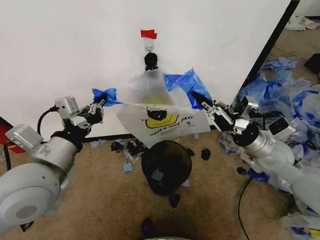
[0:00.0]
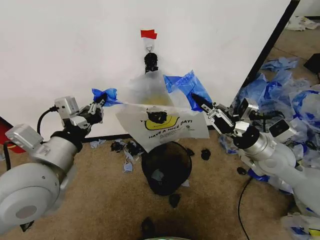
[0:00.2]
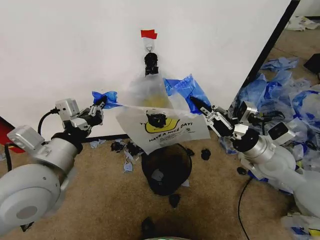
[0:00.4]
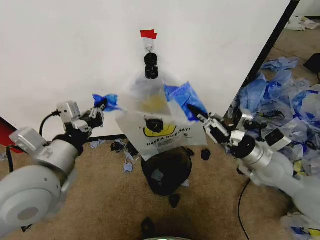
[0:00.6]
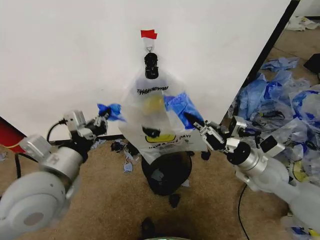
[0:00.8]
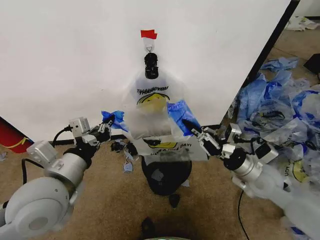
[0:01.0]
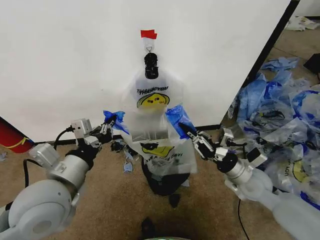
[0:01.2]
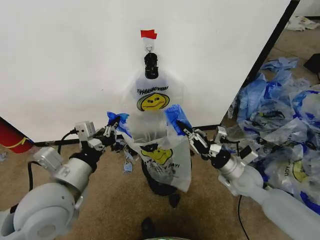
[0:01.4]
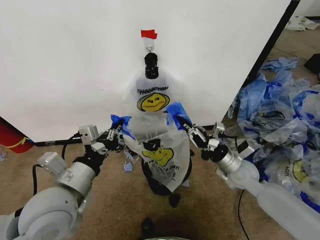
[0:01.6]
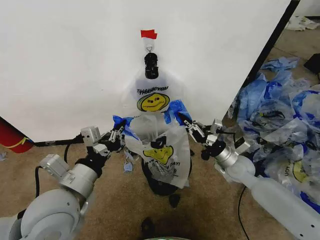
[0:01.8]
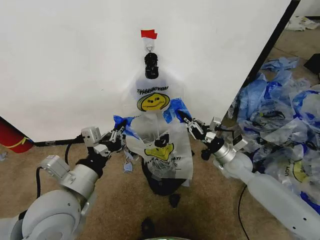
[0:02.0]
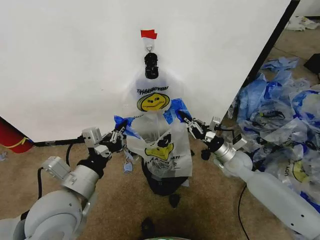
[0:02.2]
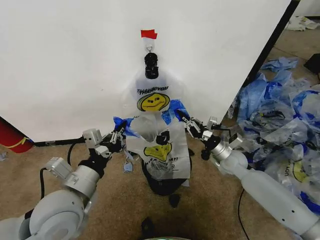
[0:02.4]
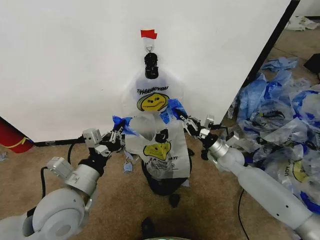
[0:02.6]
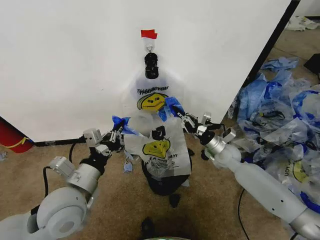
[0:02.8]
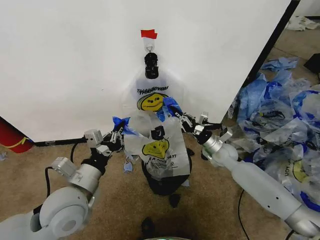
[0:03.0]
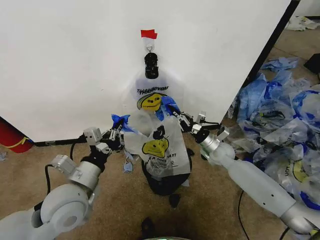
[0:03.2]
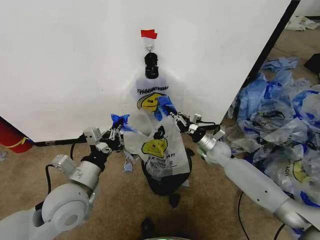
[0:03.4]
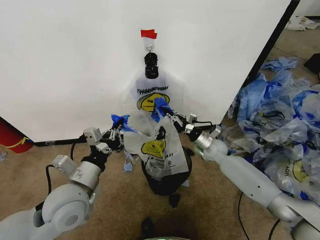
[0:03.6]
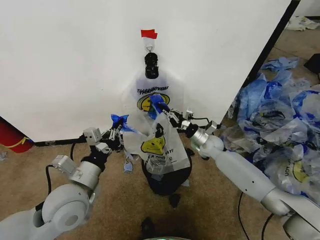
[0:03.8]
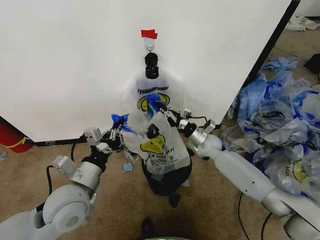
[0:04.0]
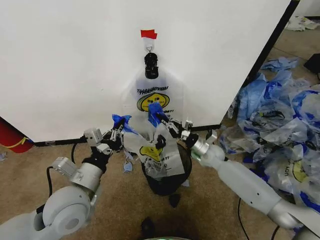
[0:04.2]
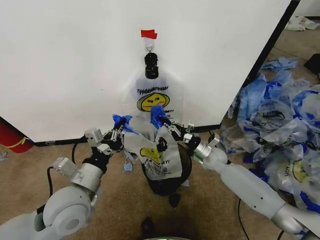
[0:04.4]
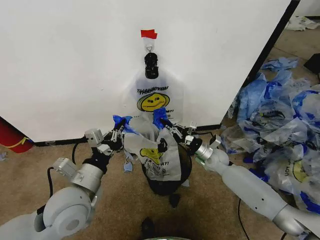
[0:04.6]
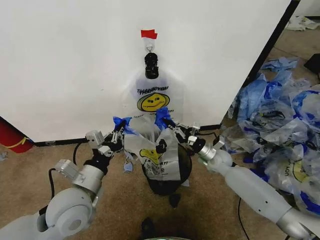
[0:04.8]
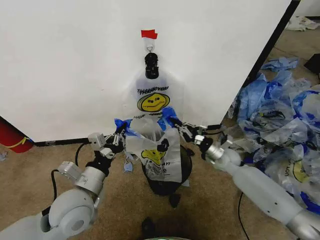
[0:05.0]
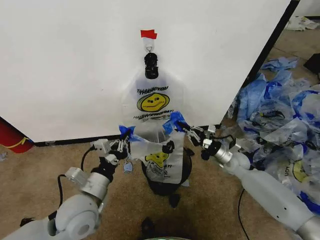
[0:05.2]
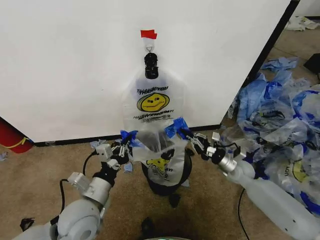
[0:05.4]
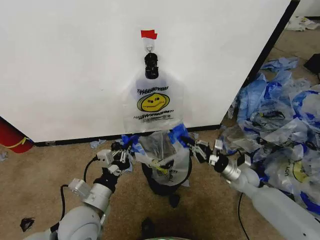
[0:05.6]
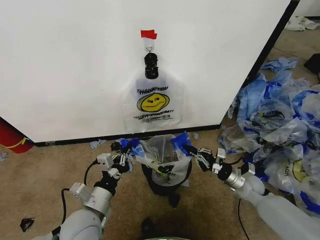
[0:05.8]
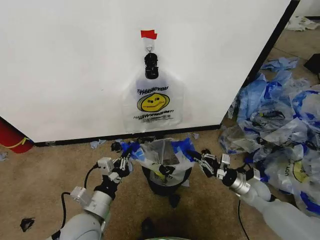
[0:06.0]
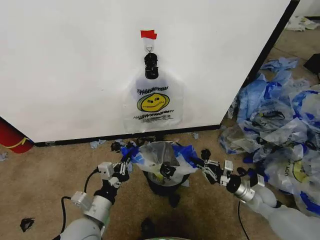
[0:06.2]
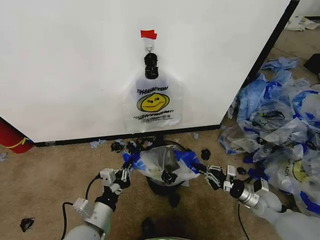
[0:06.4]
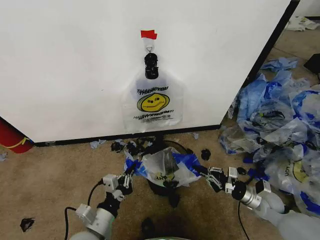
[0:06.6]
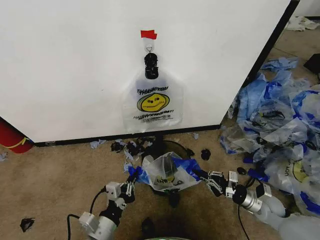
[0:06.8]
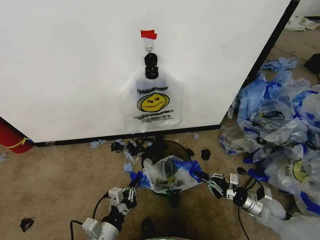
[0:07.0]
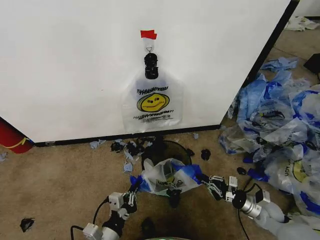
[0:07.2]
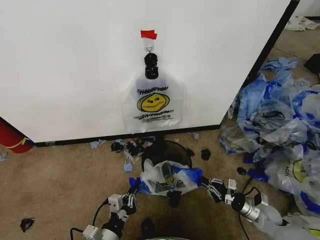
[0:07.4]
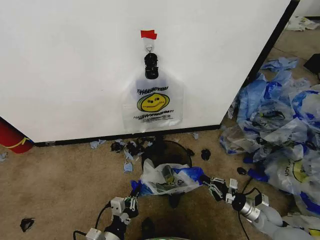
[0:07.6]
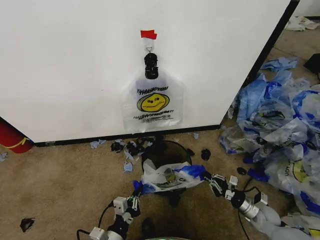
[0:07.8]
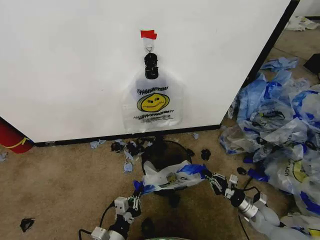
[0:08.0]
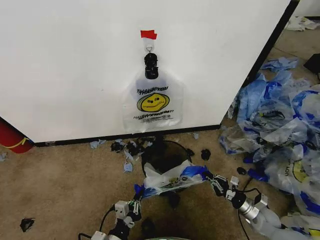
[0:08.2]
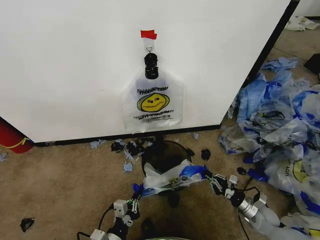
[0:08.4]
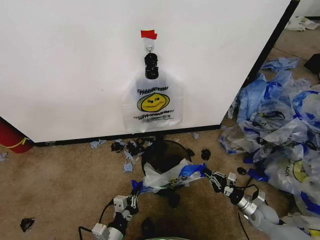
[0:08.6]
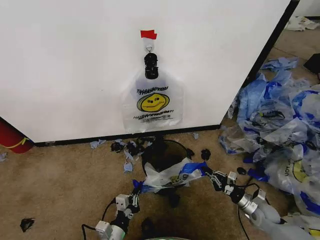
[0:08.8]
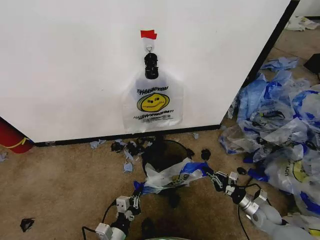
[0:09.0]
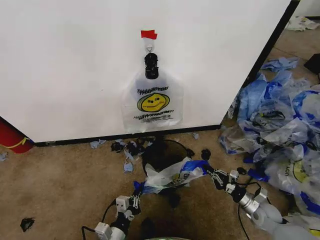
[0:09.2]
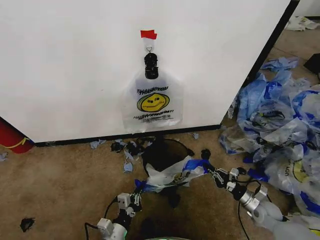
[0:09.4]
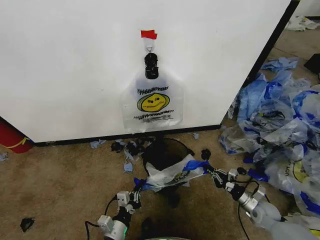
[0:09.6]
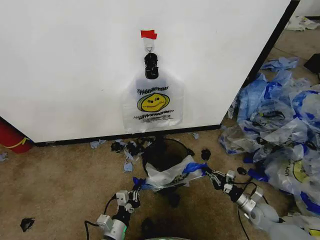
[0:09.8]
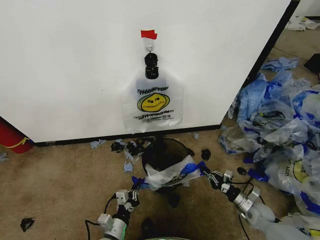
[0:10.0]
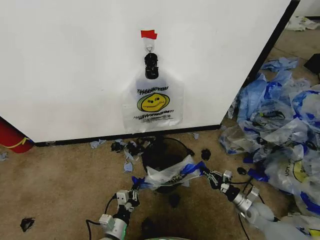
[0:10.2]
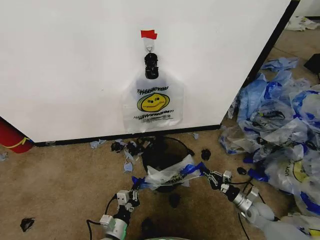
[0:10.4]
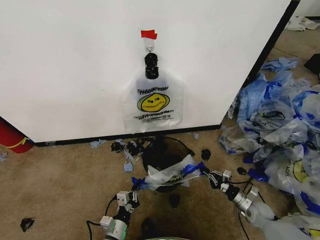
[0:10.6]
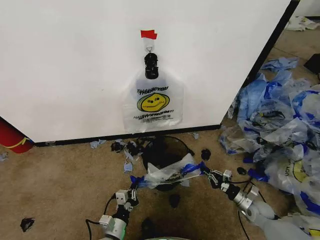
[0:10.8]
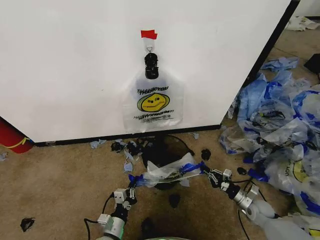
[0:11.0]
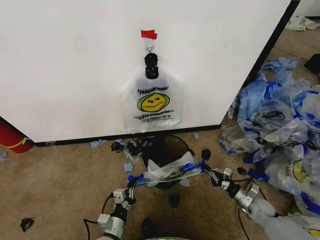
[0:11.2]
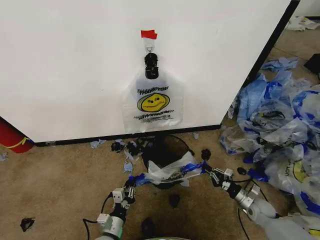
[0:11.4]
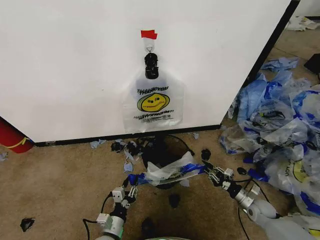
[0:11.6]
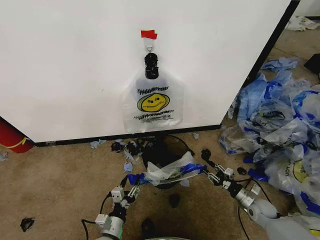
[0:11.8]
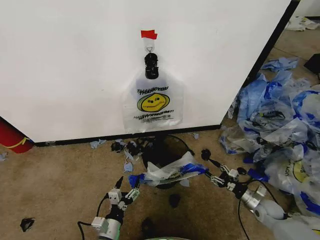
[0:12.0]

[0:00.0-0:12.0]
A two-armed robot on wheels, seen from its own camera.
Task of the whole recording: Pick up the garbage bag from the wall and place it over the trash bin.
0:00.0 to 0:01.6: The right gripper moves downward, roughly 10 cm, while the left gripper travels downward by roughly 5 cm.
0:01.6 to 0:03.0: The left gripper changes place by some 5 cm. Meanwhile the right gripper heads forward, covering approximately 10 cm.
0:04.4 to 0:06.0: The right gripper heads to the right and backward, covering about 20 cm, while the left gripper heads downward, covering approximately 10 cm.
0:06.0 to 0:07.6: The two grippers go roughly 10 cm downward and backward.
0:07.6 to 0:09.0: The grippers stay close to where they were, moving slightly.
0:09.0 to 0:10.4: The left gripper ends up some 5 cm from where it was.
0:10.4 to 0:12.0: The right gripper opens up, while the left gripper opens.

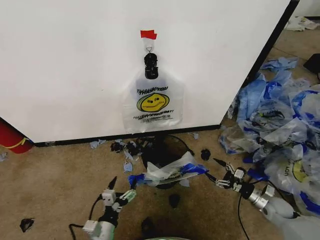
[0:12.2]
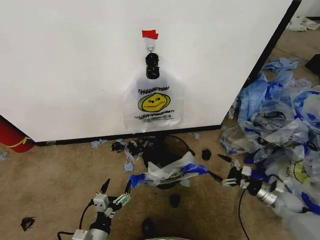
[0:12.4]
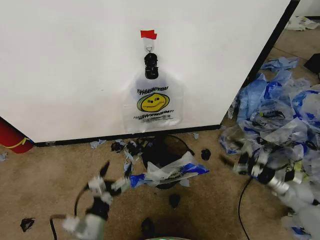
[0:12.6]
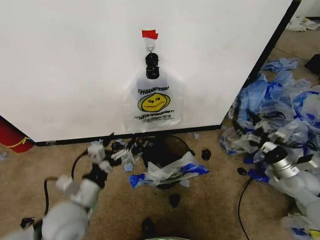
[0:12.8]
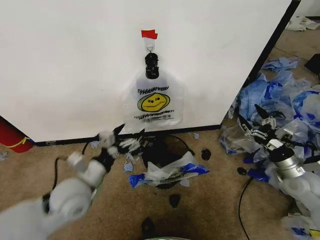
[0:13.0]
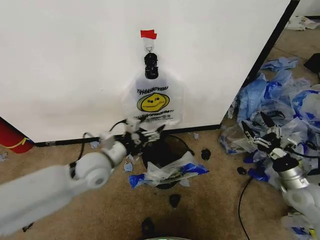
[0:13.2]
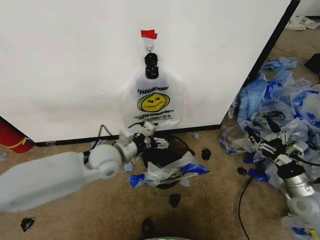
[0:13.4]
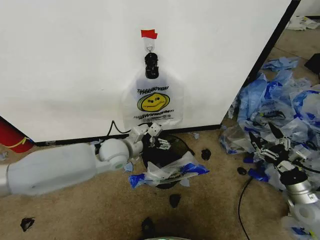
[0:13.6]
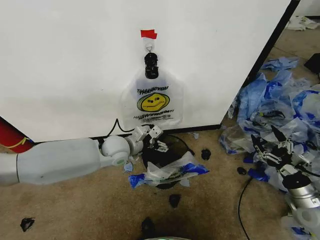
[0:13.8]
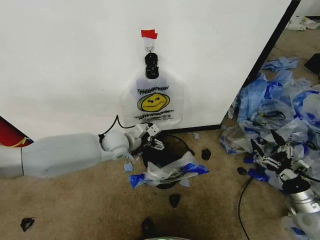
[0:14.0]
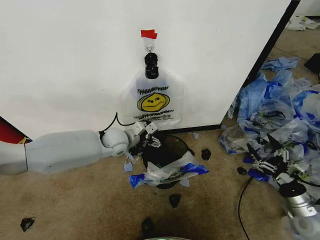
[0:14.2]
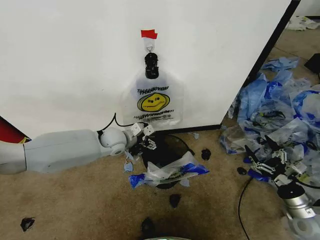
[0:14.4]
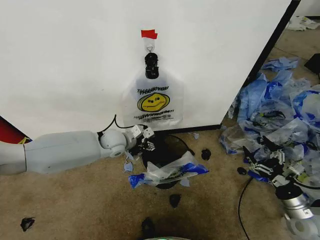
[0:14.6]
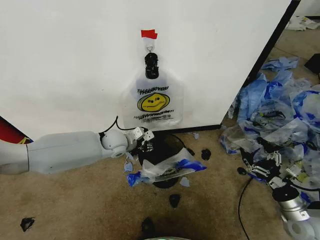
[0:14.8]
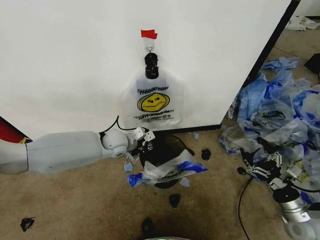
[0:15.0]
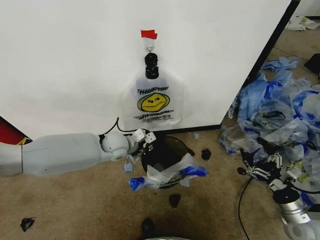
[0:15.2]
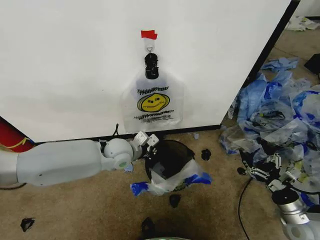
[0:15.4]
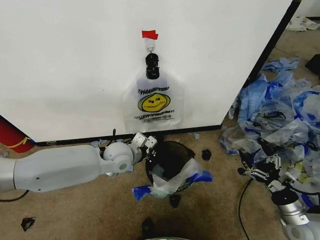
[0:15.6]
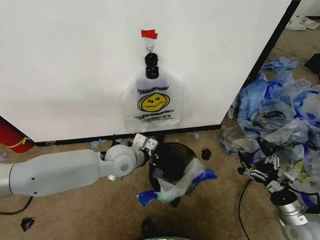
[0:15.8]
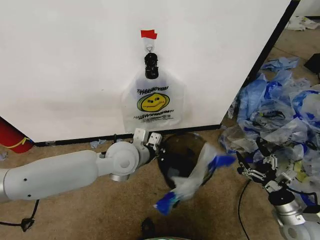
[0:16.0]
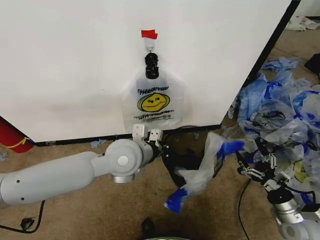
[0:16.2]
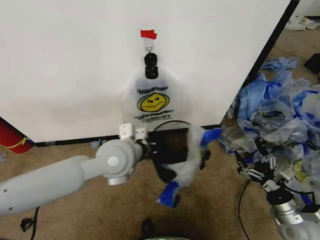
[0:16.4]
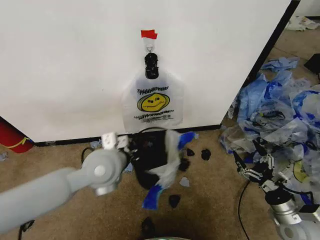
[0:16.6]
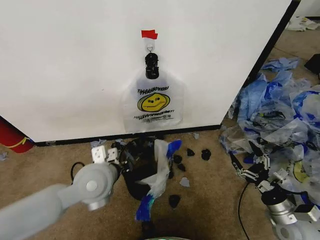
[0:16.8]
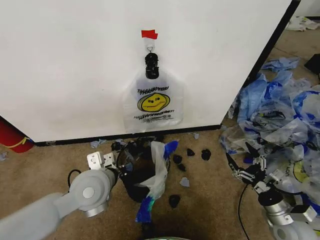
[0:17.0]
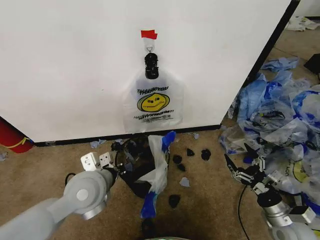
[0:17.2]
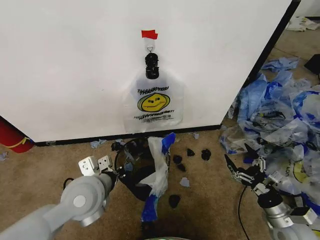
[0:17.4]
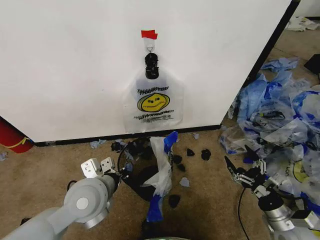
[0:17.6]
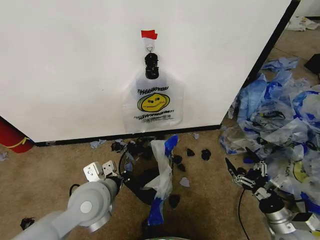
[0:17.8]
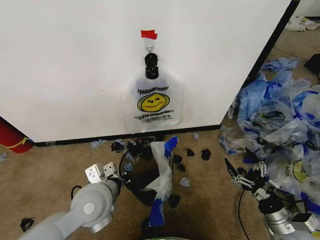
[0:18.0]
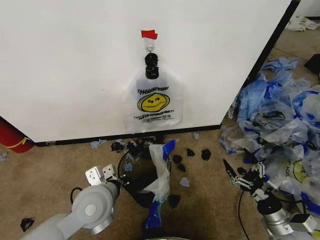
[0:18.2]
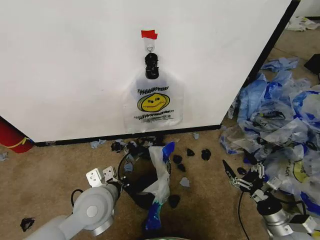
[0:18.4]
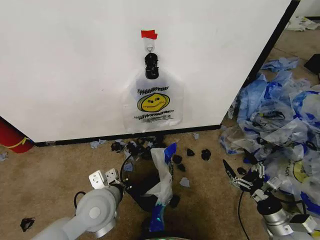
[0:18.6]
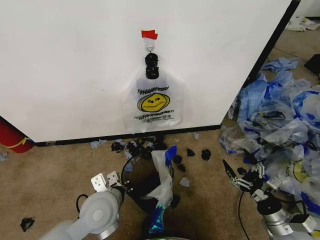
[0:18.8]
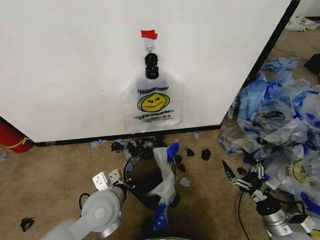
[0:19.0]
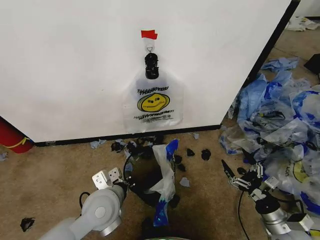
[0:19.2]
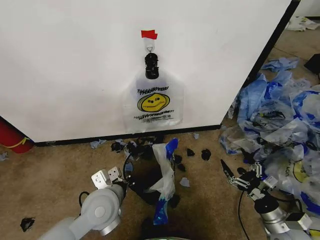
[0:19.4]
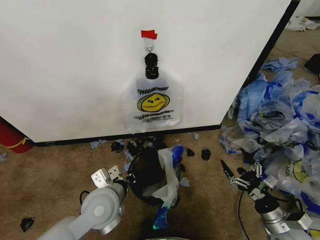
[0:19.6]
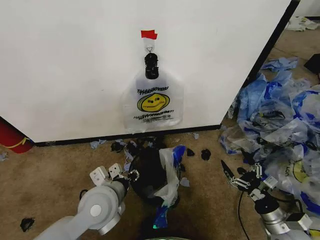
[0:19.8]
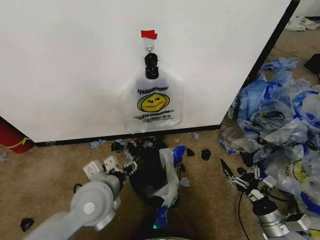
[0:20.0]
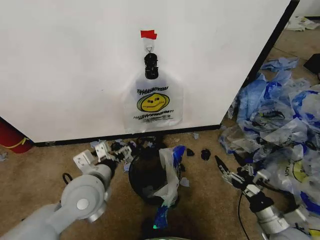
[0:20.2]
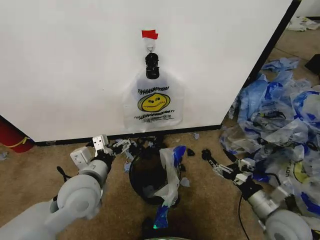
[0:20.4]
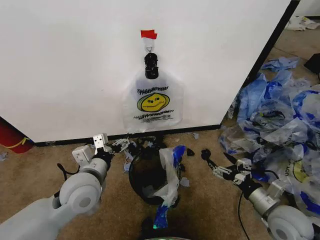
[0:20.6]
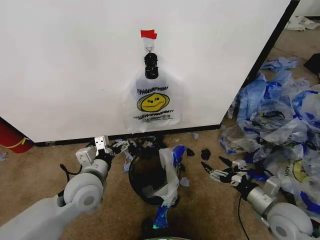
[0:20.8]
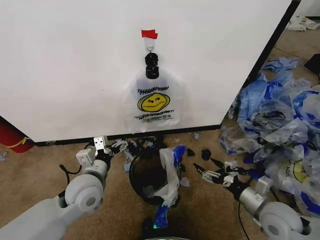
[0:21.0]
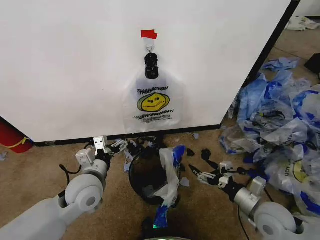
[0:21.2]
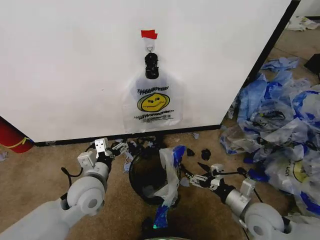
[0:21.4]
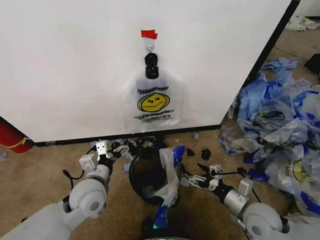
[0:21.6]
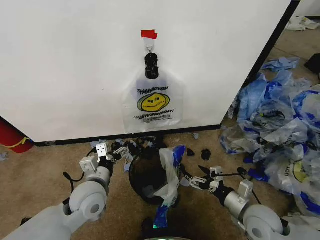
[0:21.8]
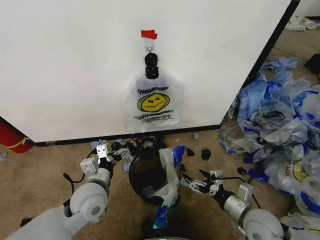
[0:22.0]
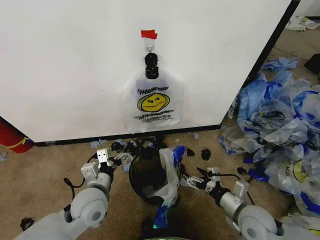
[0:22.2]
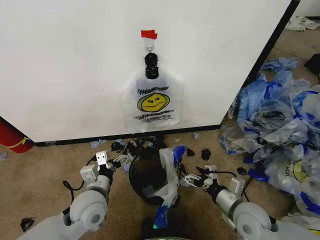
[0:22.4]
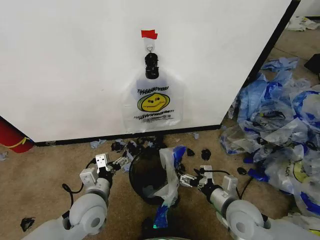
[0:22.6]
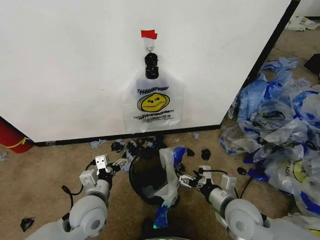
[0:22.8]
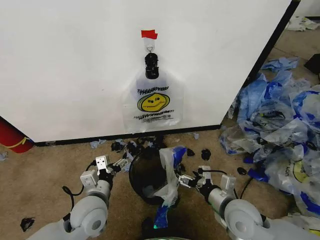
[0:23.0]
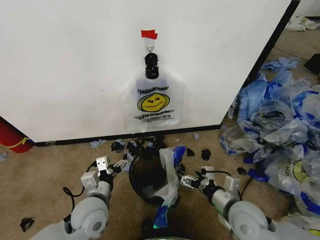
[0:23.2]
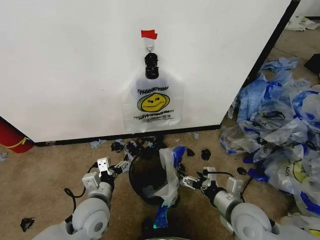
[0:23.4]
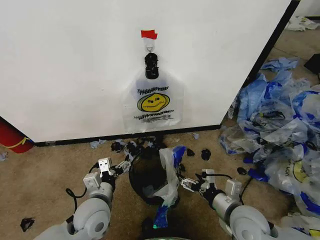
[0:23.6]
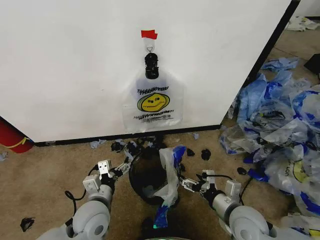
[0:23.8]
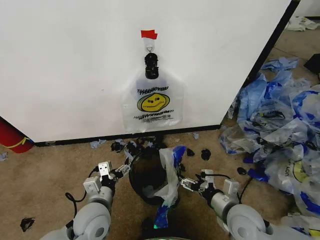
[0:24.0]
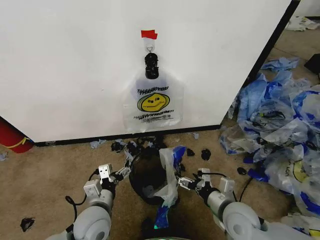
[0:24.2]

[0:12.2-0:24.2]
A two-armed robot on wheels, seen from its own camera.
Task of the whole recording: Pick up the garbage bag from the wall and place it over the trash bin.
0:12.2 to 0:13.8: The right gripper heads upward and backward, covering roughly 15 cm; the left gripper shifts about 35 cm forward and upward.
0:13.8 to 0:15.2: The right gripper changes place by some 5 cm. Meanwhile the left gripper closes its fingers.
0:15.2 to 0:16.6: The left gripper heads backward and upward, covering approximately 15 cm.
0:16.6 to 0:18.2: The left gripper moves downward and backward, about 10 cm.
0:18.2 to 0:19.8: The left gripper opens up.
0:19.8 to 0:21.2: The left gripper heads to the left, covering approximately 5 cm, and opens, while the right gripper is displaced to the left and upward by some 10 cm.
0:21.2 to 0:22.6: The right gripper is displaced to the left by about 5 cm, while the left gripper moves roughly 5 cm.
0:22.6 to 0:24.2: The grippers move only a little.
